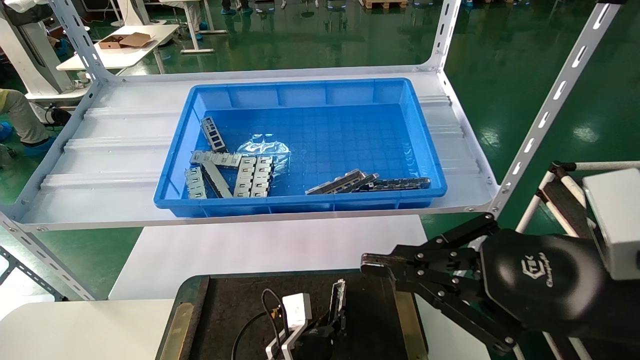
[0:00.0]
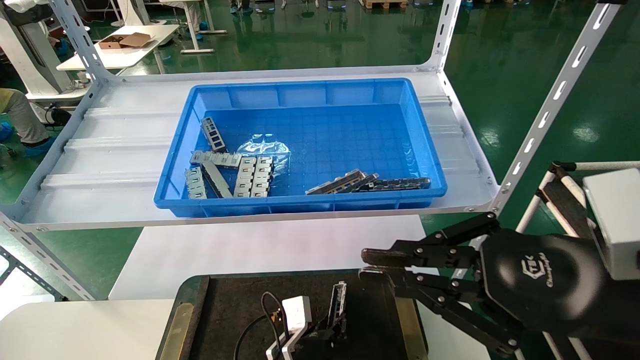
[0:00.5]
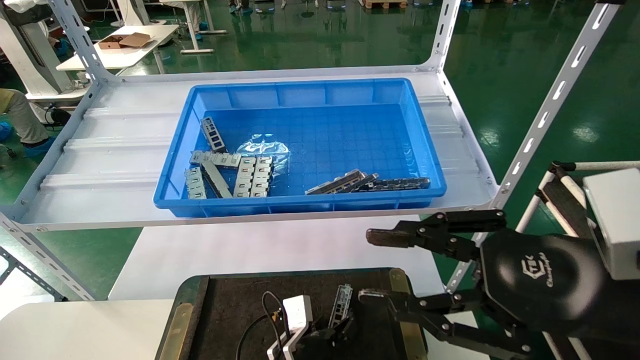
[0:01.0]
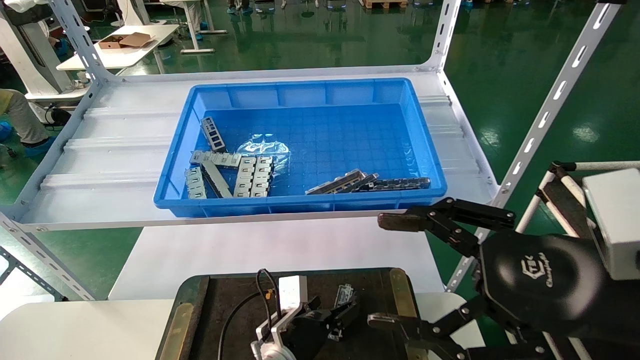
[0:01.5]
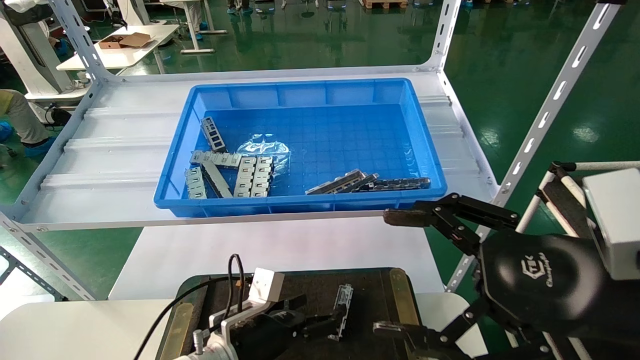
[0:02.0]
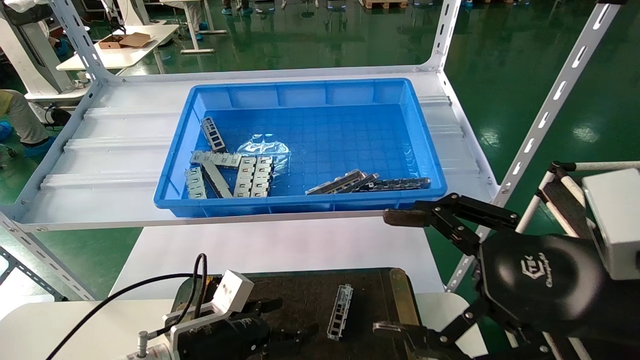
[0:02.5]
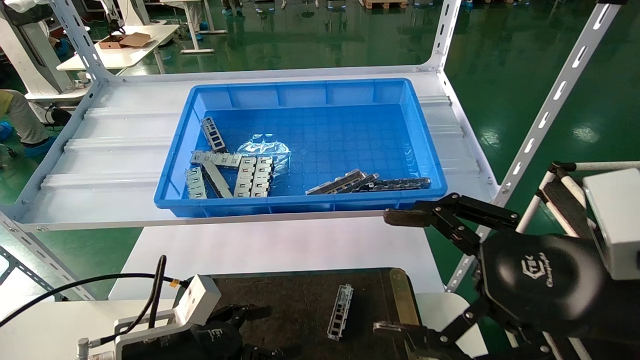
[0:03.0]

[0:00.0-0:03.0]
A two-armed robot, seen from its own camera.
Task of the whole recording: Grasp the part with one hand and place it on the black container.
0:00.0 to 0:01.5: The left gripper opens up. Meanwhile the right gripper opens.
0:01.5 to 0:03.0: The left gripper is displaced to the left, upward and backward by some 20 cm.

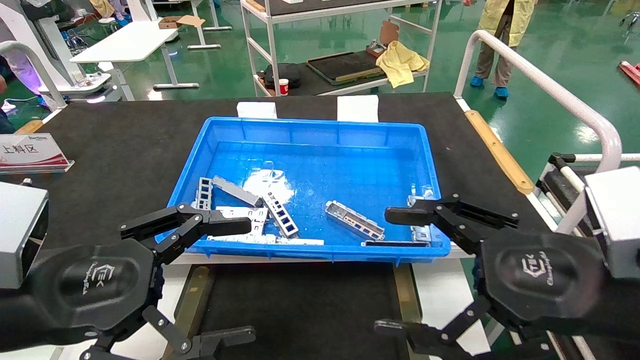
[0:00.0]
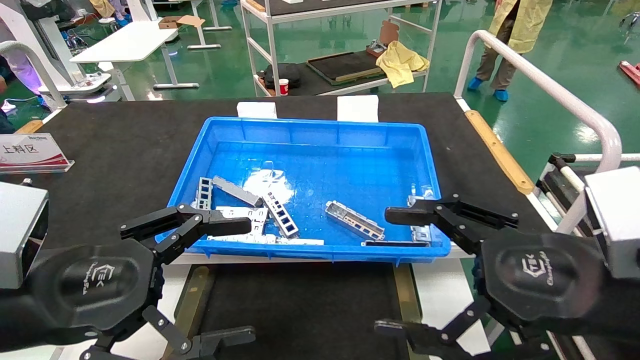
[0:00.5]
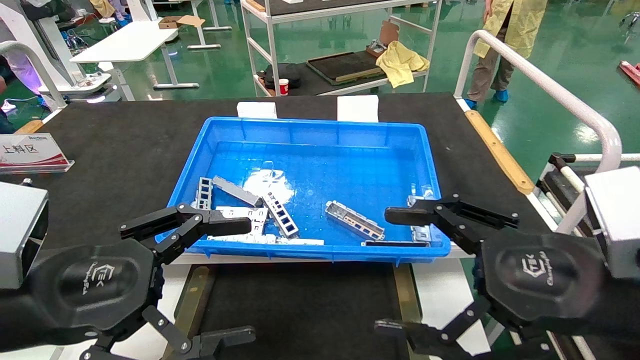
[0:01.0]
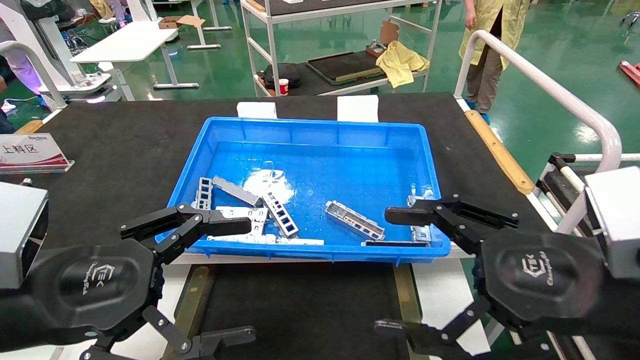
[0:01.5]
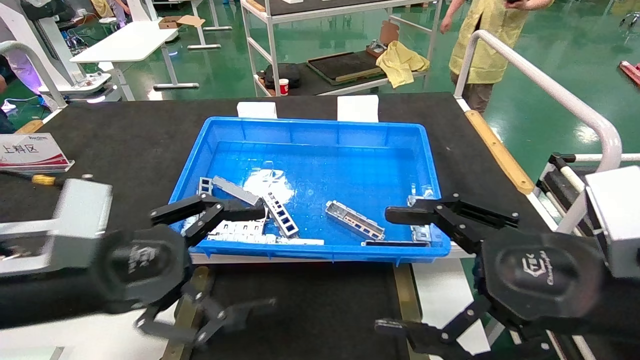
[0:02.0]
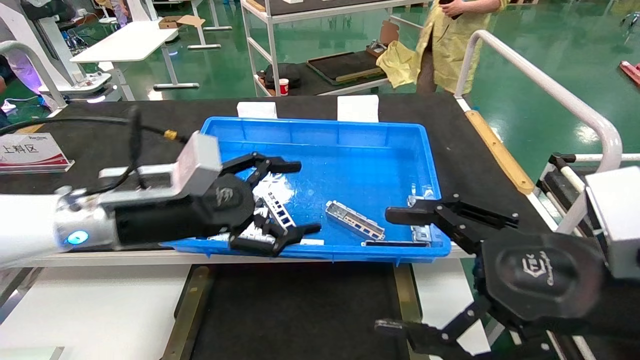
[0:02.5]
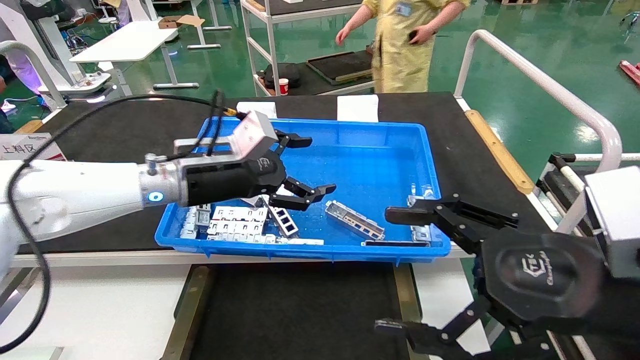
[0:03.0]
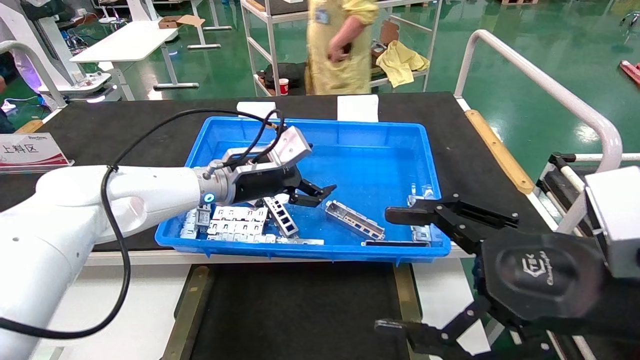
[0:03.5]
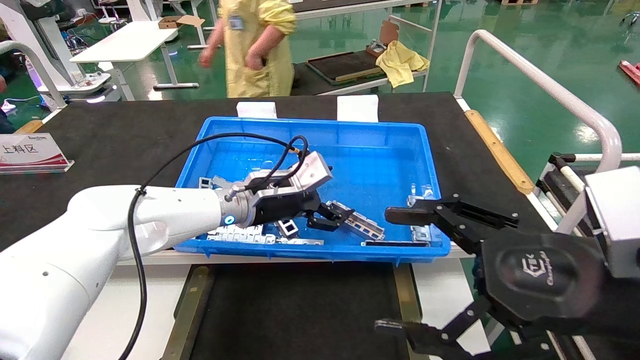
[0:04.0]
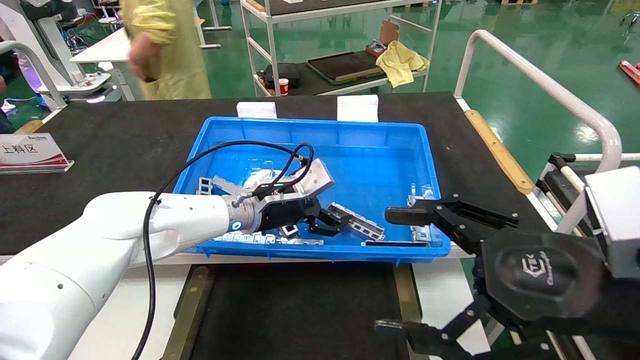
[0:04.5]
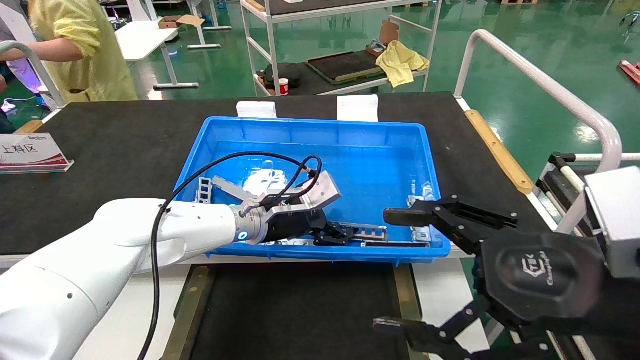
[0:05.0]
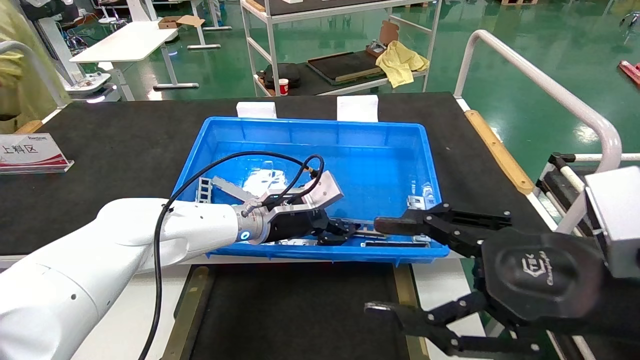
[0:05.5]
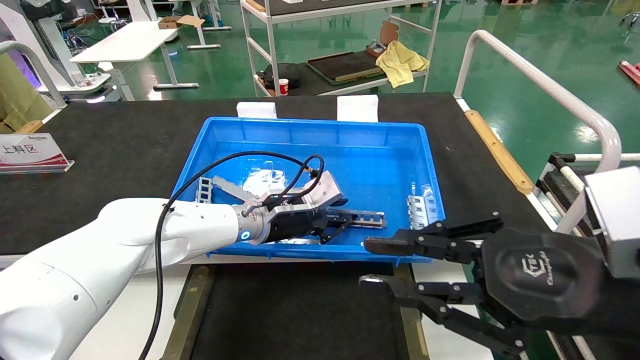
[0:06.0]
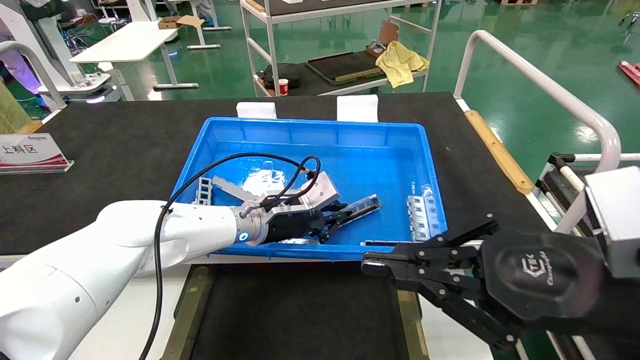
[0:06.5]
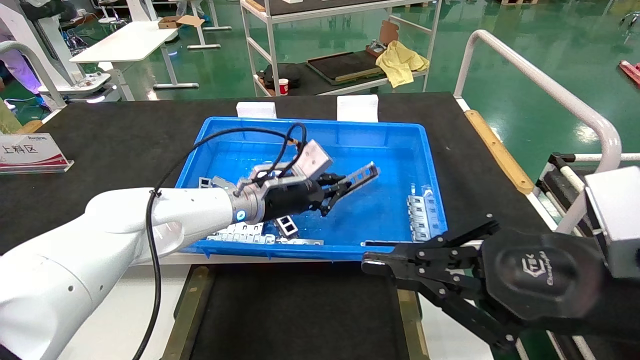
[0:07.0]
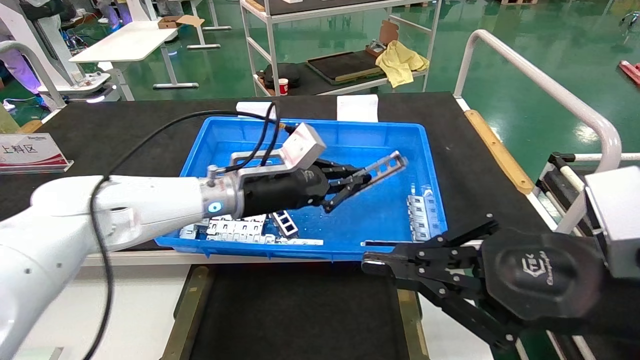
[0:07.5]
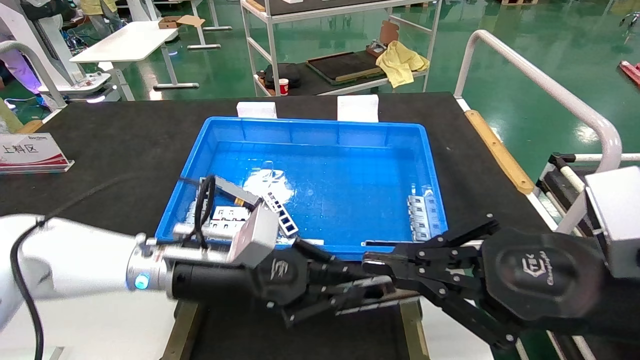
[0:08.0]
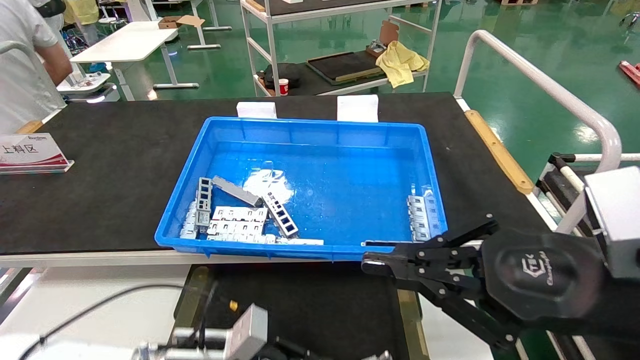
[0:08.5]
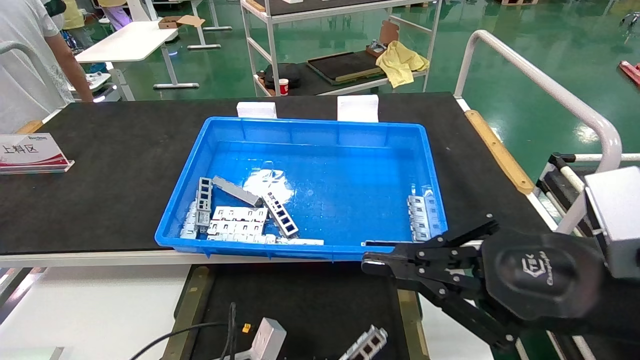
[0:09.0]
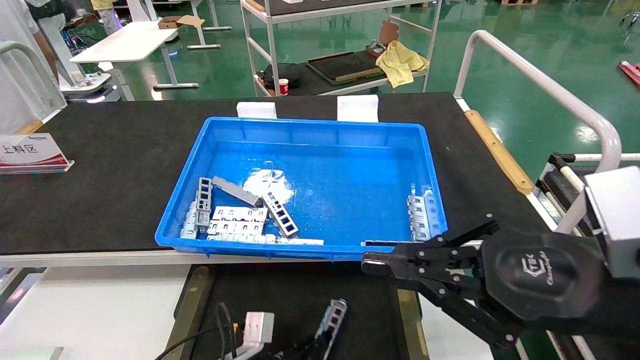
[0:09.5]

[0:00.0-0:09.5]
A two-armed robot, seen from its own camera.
Task of the whole recording: Grasp the part with one hand and place it on the black container.
Step, 0:02.0 to 0:06.5: Pick up the front USB bracket from the feeding area.
0:00.0 to 0:02.0: There are only small adjustments of the grippers.
0:02.0 to 0:04.0: The left gripper is displaced forward and to the right by approximately 25 cm.
0:04.0 to 0:05.5: The grippers stay close to where they were, moving slightly.
0:05.5 to 0:07.5: The left gripper shifts approximately 5 cm upward, and closes up, while the right gripper closes its fingers.
0:07.5 to 0:09.5: The left gripper moves downward, some 30 cm.

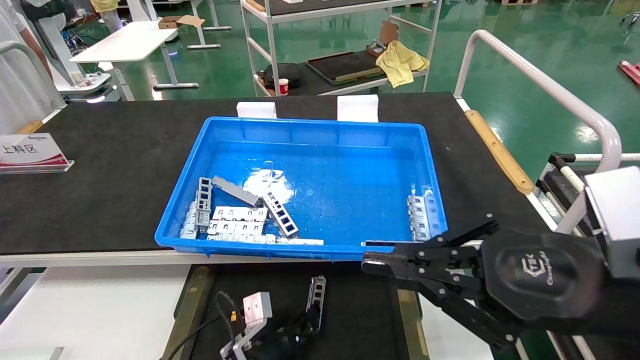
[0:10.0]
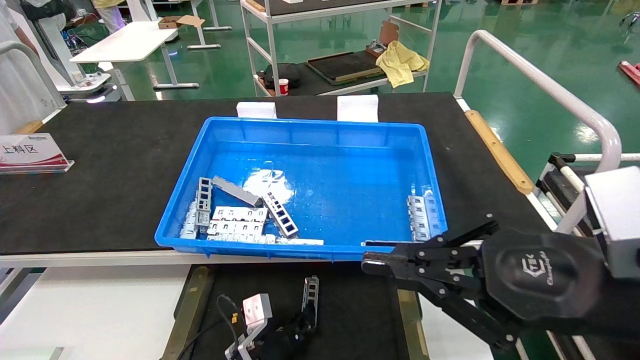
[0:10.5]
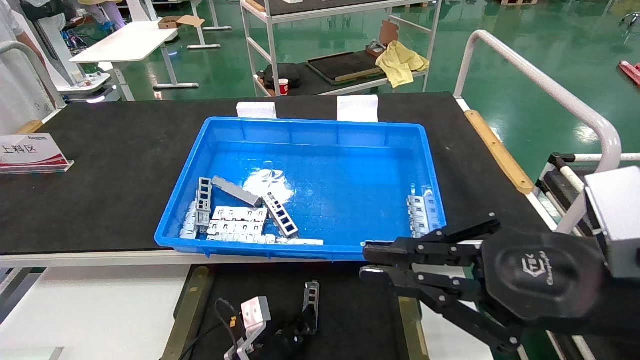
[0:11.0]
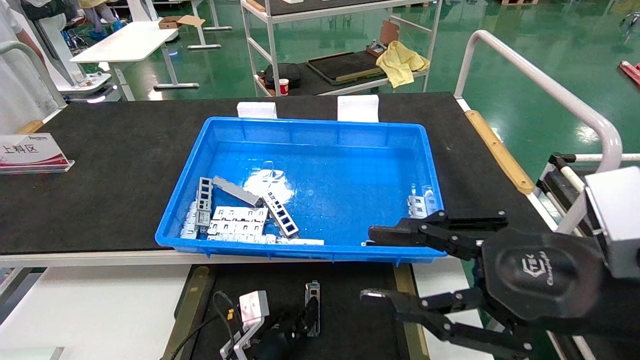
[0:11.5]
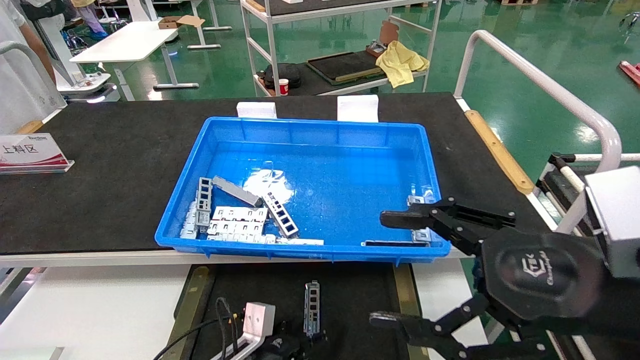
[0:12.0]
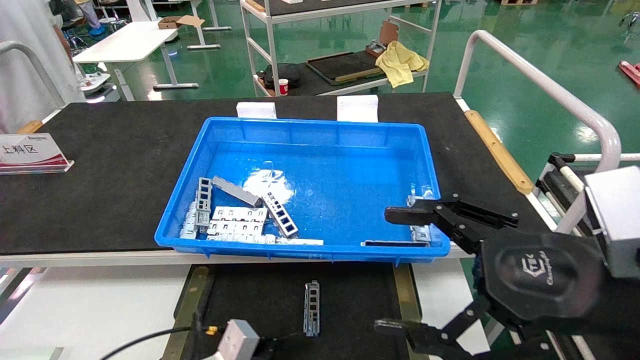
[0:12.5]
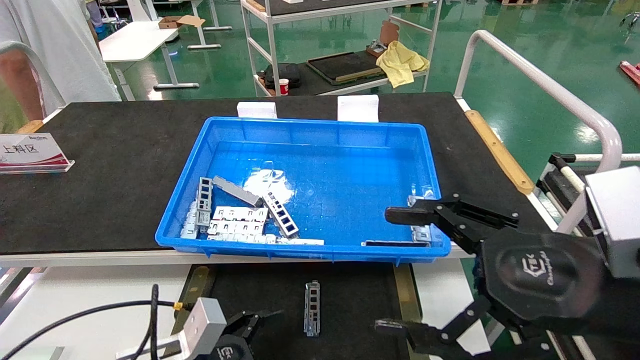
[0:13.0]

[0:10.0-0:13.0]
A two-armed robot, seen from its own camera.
Task of the whole recording: Grasp the part with one hand and place it on the black container.
0:10.0 to 0:11.5: The grippers move only a little.
0:11.5 to 0:13.0: The left gripper heads backward, upward and to the left, covering approximately 20 cm, and opens its fingers. The right gripper opens up.
